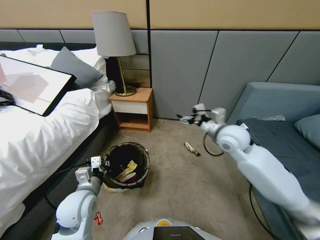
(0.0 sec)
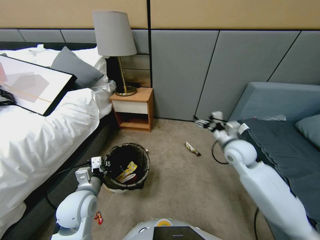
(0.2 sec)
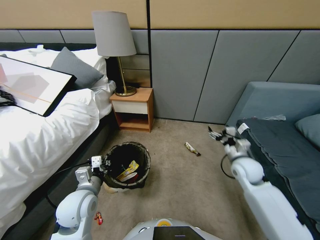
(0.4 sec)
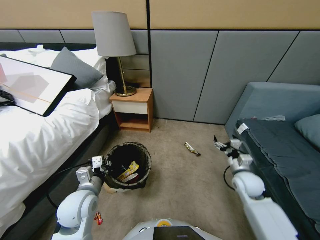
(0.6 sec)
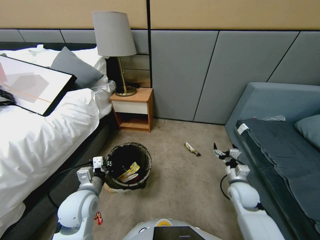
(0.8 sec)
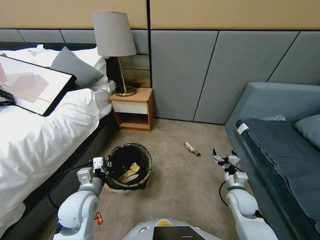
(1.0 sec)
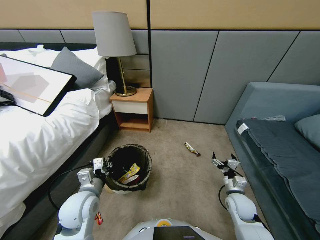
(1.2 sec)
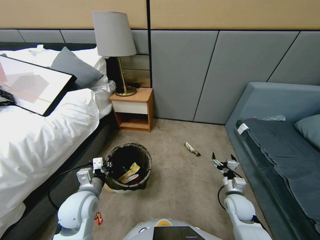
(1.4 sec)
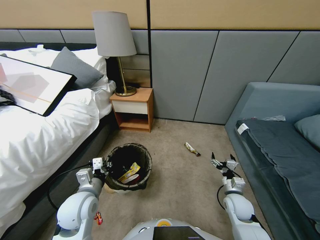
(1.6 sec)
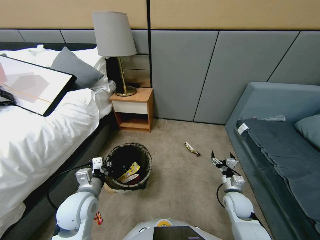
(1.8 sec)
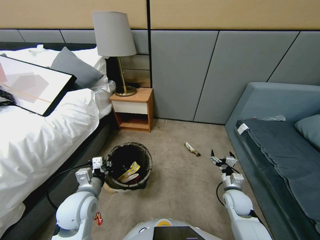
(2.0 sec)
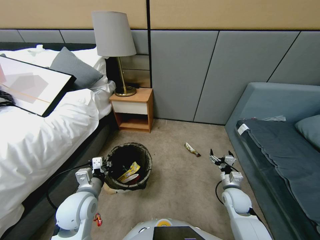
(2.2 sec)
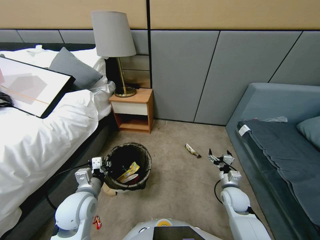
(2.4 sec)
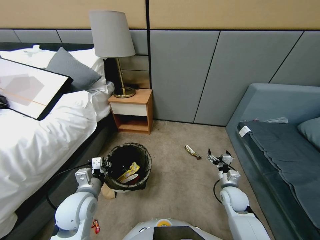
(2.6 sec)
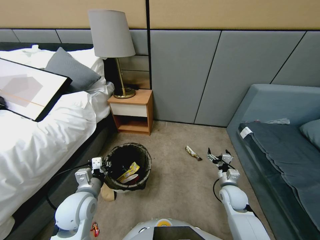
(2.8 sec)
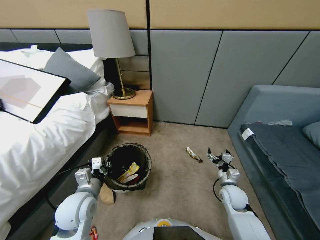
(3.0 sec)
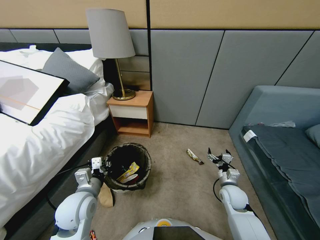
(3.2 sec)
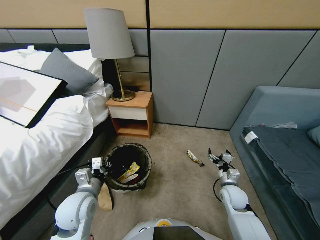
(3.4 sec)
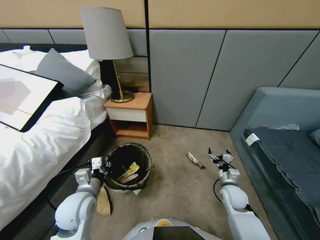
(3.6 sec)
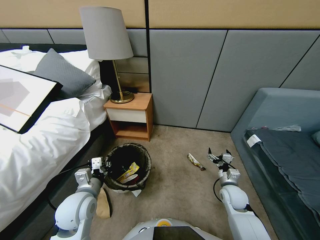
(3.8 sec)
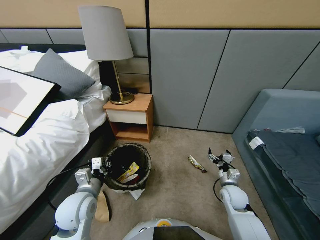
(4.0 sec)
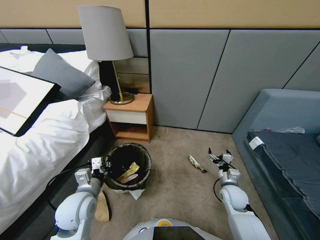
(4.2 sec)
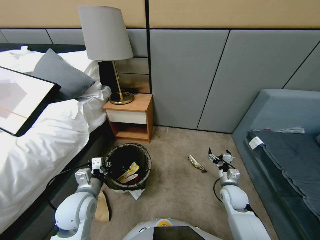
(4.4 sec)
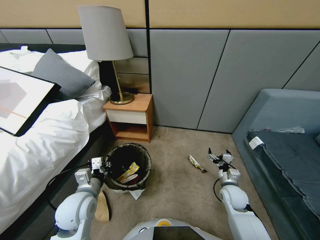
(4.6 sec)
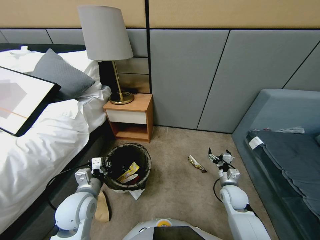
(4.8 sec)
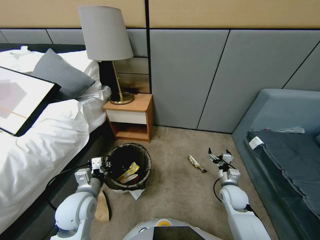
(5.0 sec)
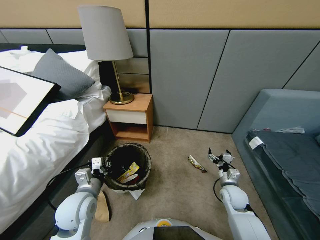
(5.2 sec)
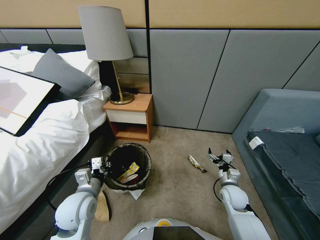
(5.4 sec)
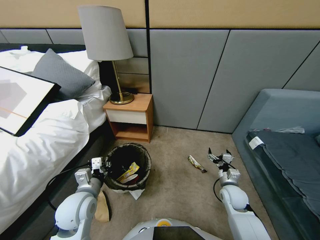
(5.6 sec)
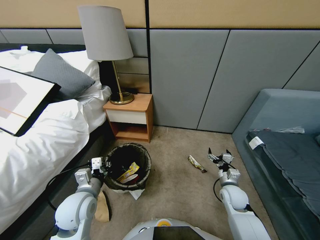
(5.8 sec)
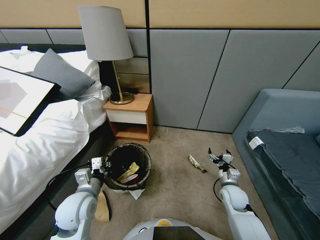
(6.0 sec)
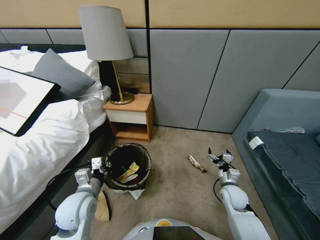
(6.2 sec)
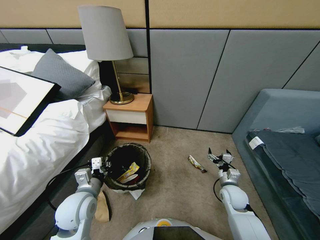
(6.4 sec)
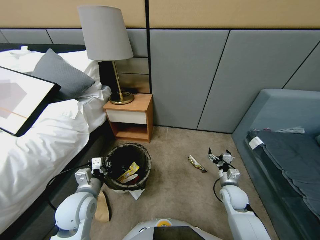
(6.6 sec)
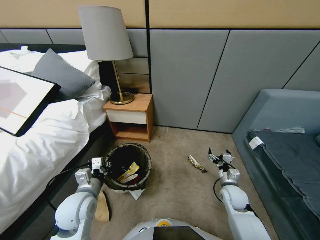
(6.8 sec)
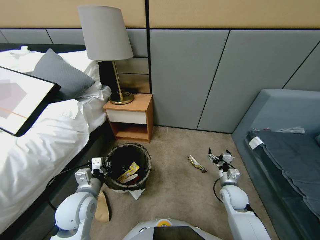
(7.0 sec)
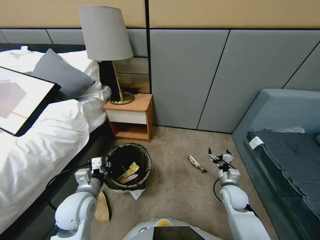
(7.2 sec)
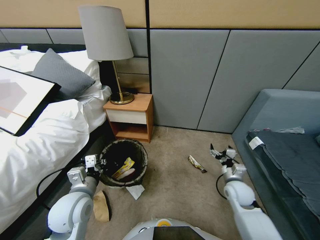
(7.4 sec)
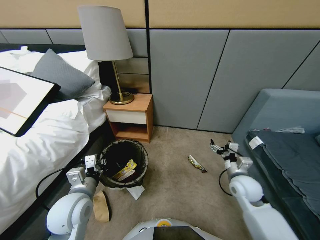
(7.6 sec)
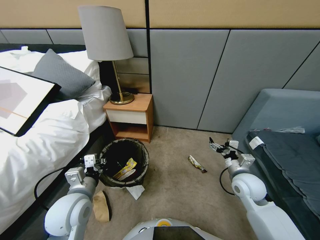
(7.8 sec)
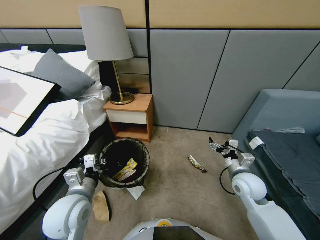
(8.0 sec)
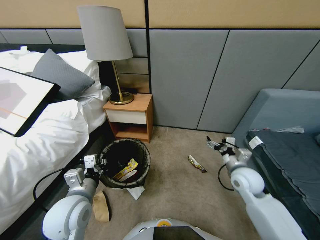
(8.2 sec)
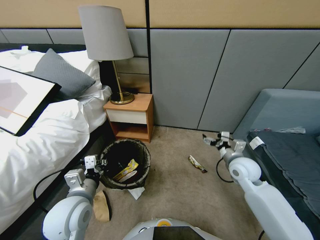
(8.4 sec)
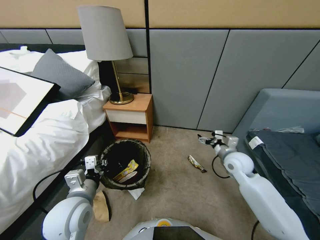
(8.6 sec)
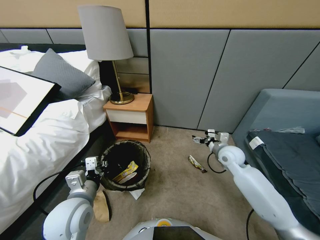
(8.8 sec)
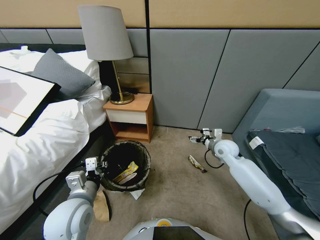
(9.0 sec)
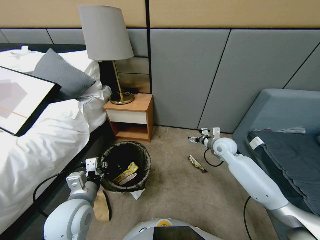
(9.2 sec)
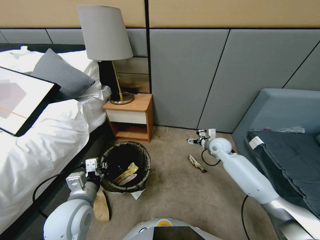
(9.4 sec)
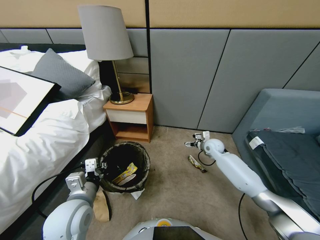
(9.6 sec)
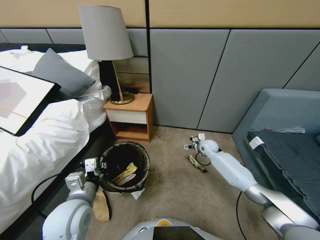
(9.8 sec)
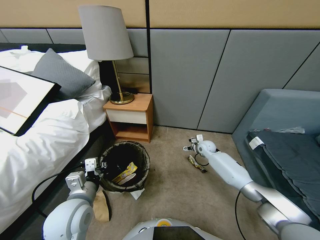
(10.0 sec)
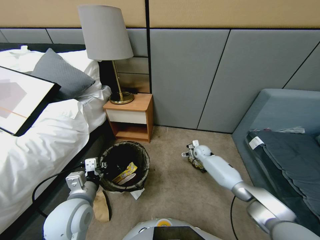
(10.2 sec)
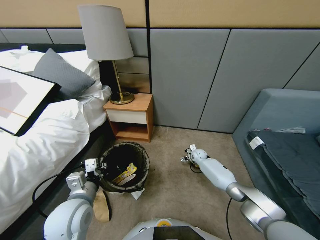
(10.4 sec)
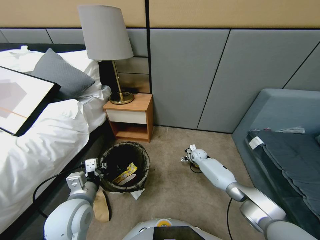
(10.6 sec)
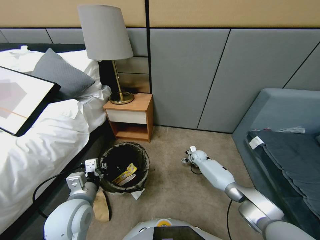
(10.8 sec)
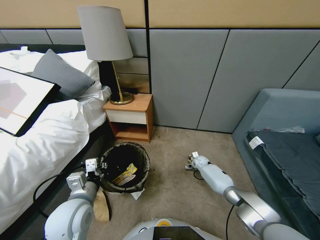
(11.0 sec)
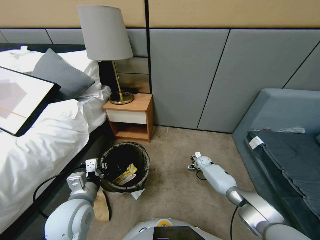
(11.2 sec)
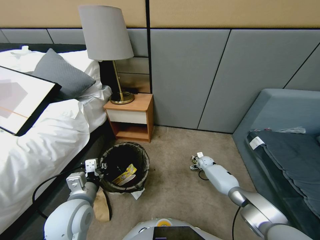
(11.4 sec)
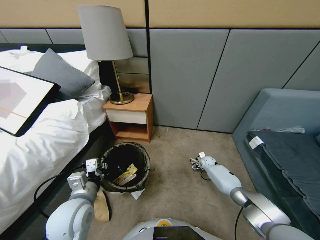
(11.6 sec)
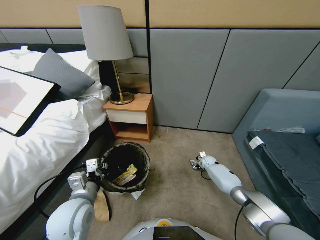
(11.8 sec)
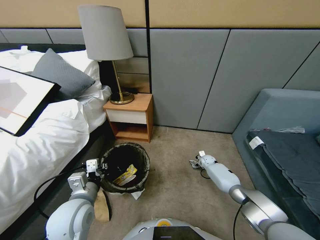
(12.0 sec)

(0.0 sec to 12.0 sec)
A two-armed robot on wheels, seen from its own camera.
Task of the whole recording: Pick up the trash bin, then pick up the garbage from the floor and place it into the trash bin.
0.0 sec - 1.6 sec: The right gripper travels downward and backward by some 30 cm.
1.6 sec - 3.0 sec: The grippers stay close to where they were, moving slightly.
3.0 sec - 6.0 sec: The two grippers keep their place.
6.0 sec - 7.6 sec: The right gripper heads upward, covering roughly 10 cm.
7.6 sec - 9.0 sec: The right gripper shifts roughly 15 cm forward.
9.0 sec - 10.4 sec: The right gripper moves downward and forward, about 25 cm.
10.4 sec - 12.0 sec: The right gripper travels to the right by roughly 5 cm.

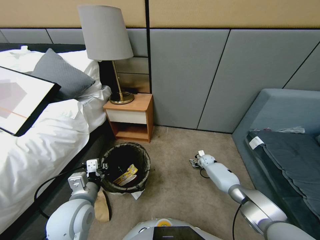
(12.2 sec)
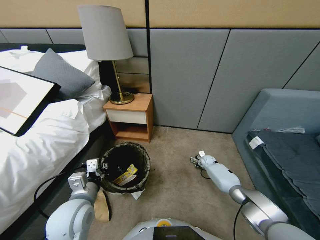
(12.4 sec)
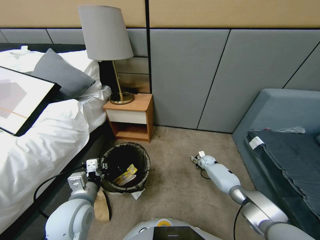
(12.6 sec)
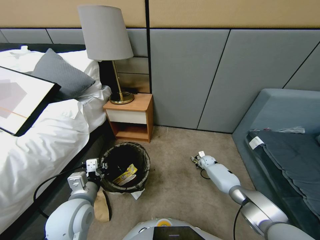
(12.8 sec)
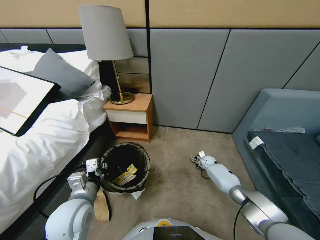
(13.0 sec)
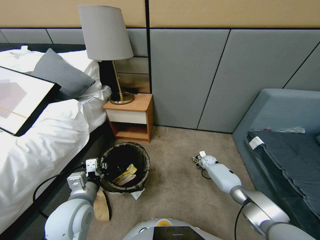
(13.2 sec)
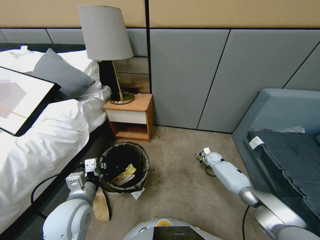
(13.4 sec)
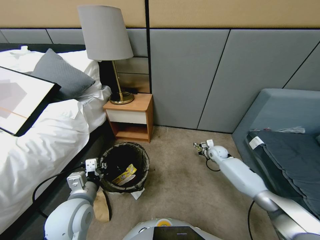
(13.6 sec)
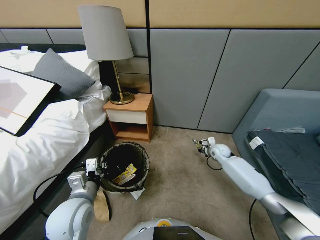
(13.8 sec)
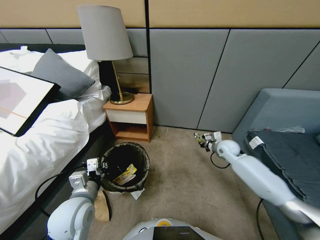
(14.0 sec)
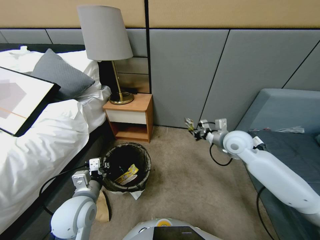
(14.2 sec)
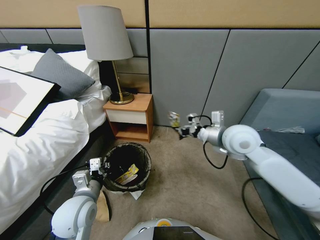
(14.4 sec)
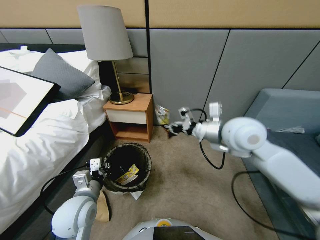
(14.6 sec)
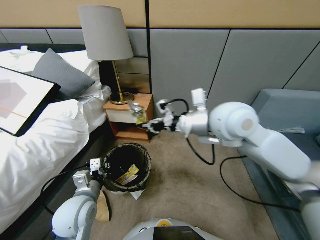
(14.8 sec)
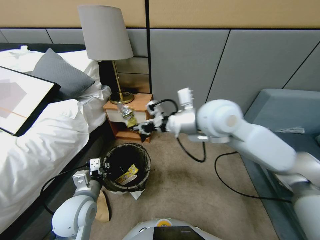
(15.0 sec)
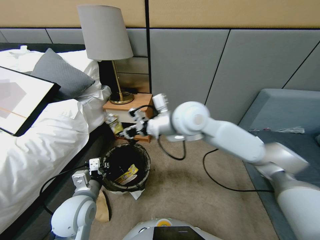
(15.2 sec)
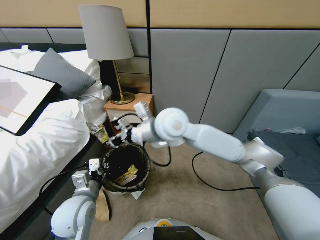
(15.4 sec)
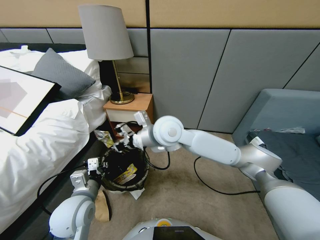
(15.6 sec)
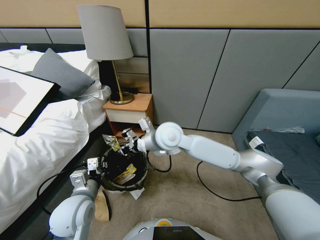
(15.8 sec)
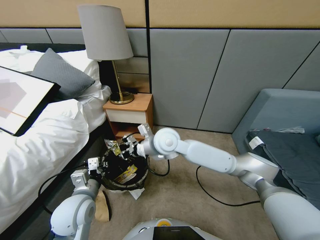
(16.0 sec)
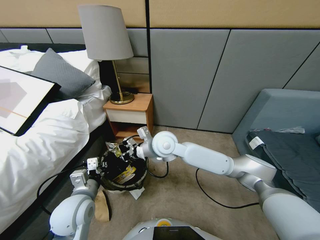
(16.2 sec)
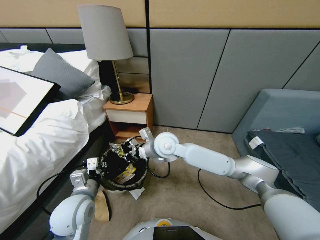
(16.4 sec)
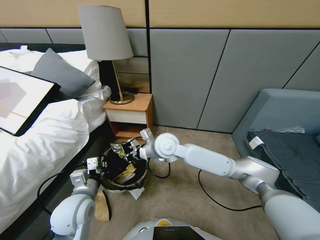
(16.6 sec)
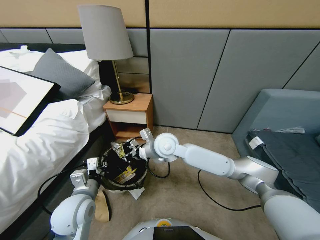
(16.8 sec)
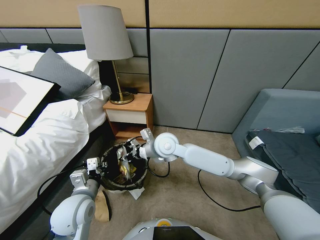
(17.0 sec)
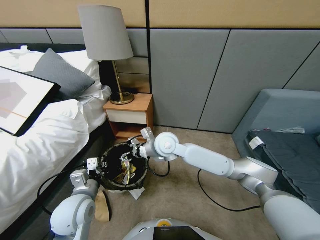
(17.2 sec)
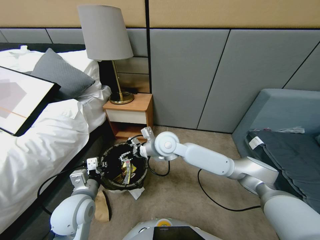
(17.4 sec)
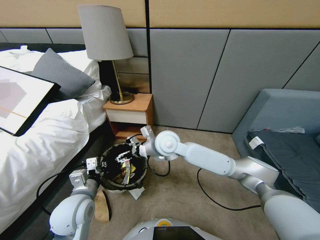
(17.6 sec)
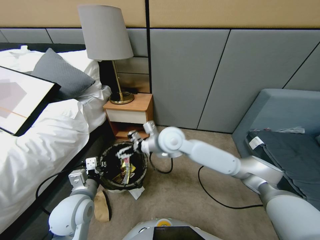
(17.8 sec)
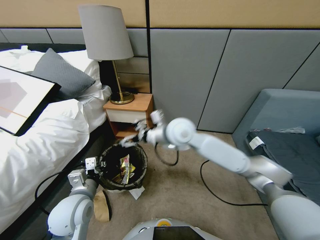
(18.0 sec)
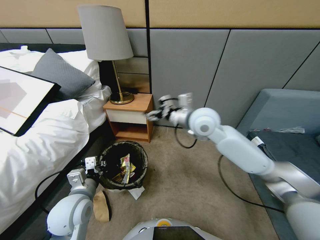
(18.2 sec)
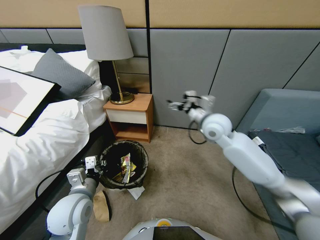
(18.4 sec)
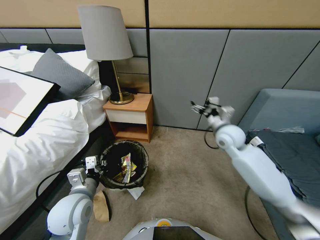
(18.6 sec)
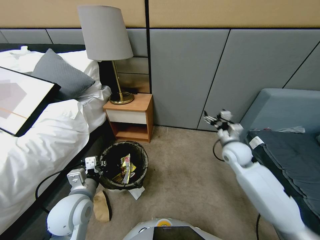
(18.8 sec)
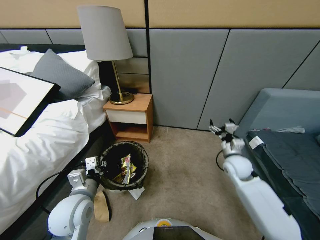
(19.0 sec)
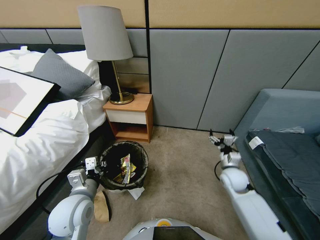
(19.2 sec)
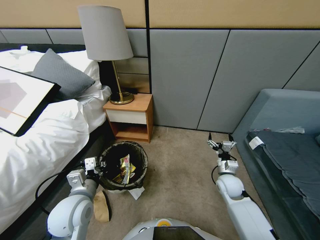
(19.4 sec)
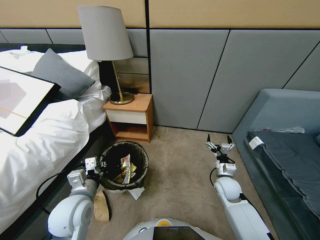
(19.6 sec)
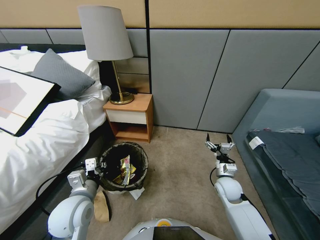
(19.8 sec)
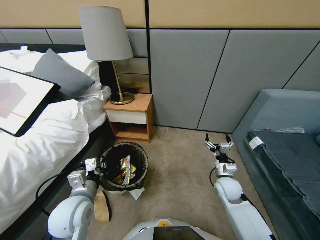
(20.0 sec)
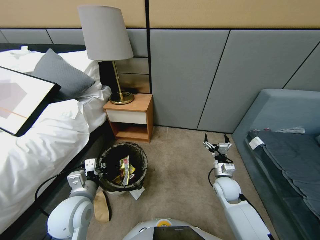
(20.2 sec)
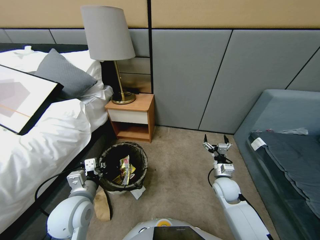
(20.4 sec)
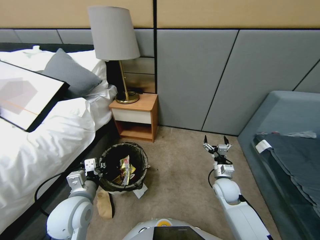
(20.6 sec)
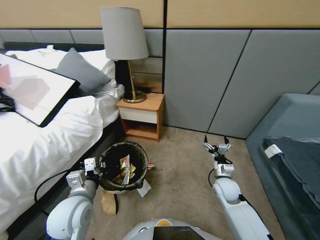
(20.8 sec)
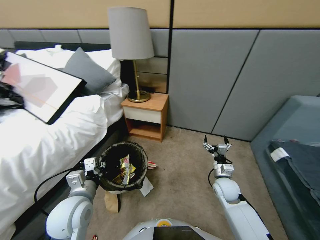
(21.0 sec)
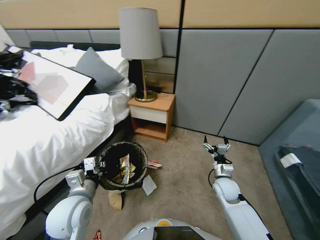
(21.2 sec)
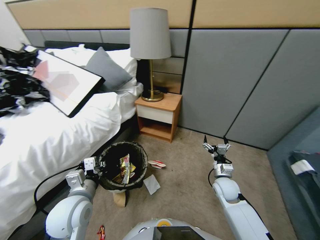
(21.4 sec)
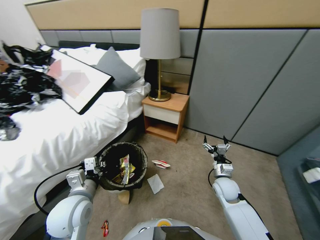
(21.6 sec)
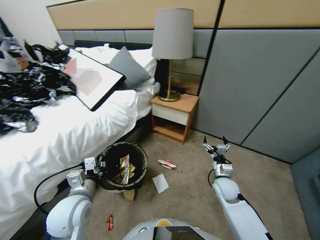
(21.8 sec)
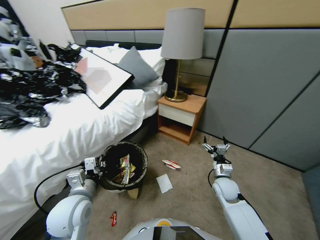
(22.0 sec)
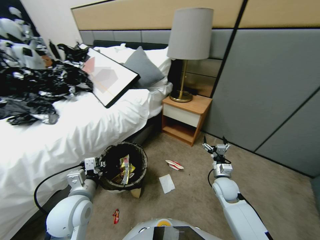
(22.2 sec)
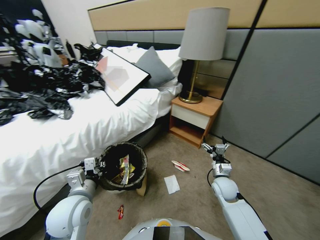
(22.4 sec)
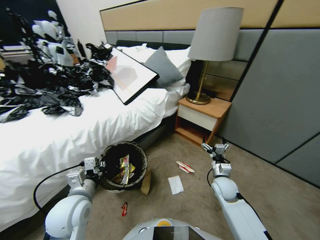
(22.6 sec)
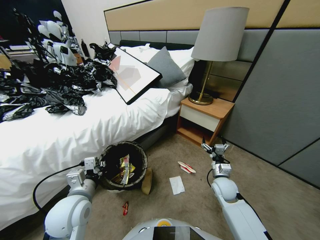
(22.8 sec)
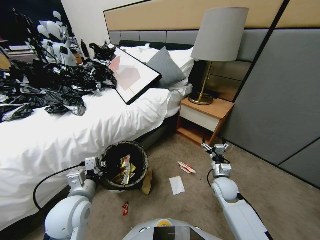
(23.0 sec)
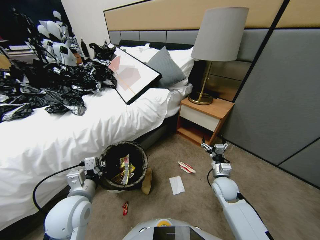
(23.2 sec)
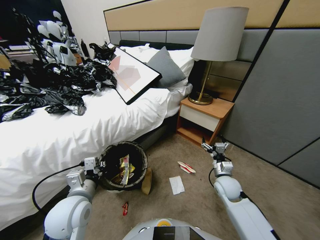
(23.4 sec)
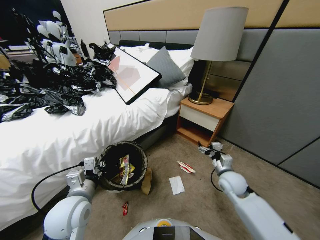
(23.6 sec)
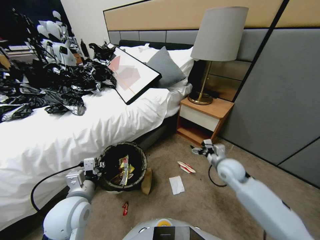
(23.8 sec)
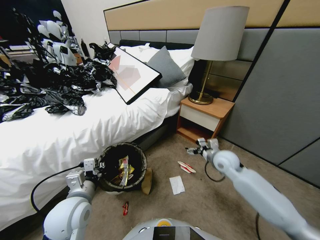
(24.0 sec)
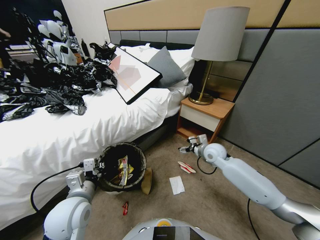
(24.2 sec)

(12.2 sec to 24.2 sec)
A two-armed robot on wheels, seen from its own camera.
Task of the whole recording: Pick up the trash bin, then pick up the garbage from the floor and place it into the trash bin.
12.2 sec - 13.8 sec: The right gripper is displaced upward by roughly 25 cm, and closes up.
13.8 sec - 15.2 sec: The right gripper shifts approximately 40 cm to the left and upward.
15.2 sec - 16.6 sec: The right gripper shifts some 10 cm downward.
16.6 sec - 18.2 sec: The right gripper shifts approximately 15 cm to the right and upward, and opens.
18.2 sec - 19.8 sec: The right gripper is displaced downward, to the right and backward by some 30 cm.
22.6 sec - 24.2 sec: The right gripper is displaced forward and upward by some 15 cm.
